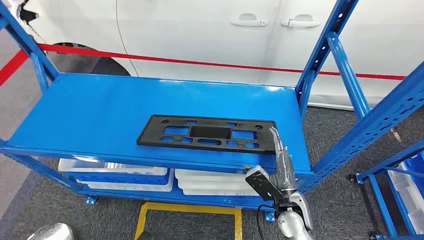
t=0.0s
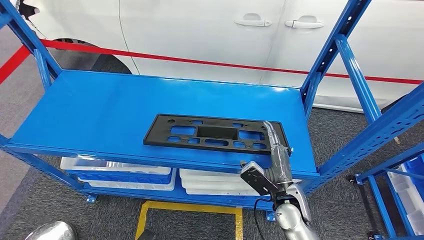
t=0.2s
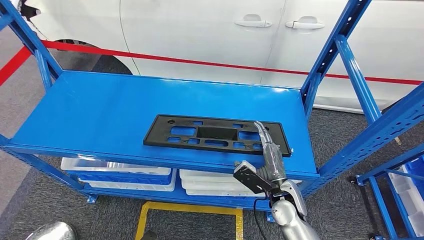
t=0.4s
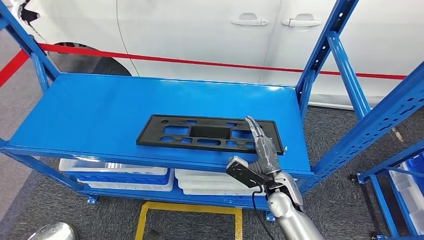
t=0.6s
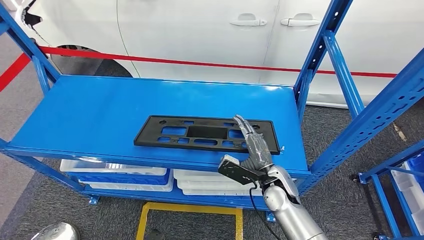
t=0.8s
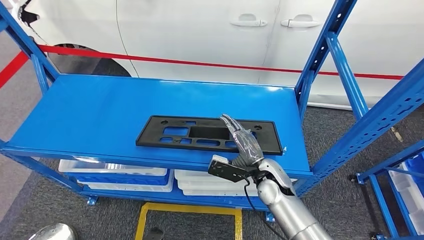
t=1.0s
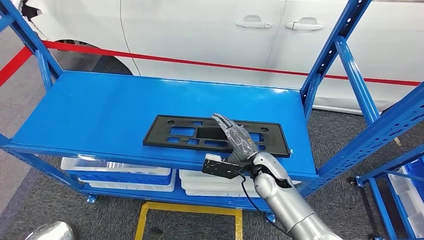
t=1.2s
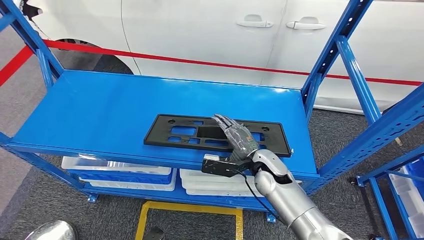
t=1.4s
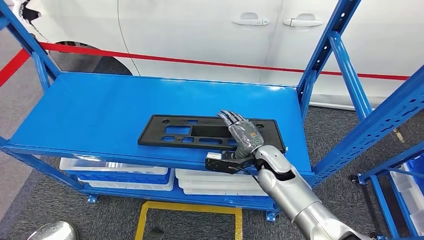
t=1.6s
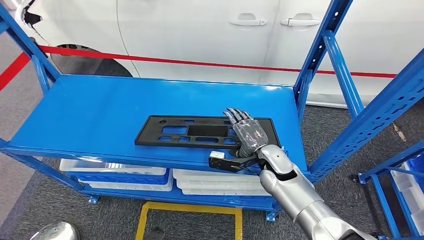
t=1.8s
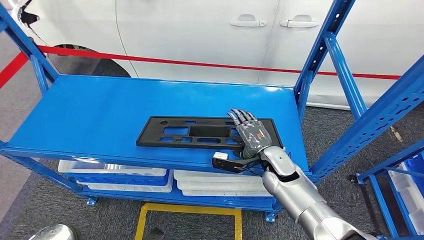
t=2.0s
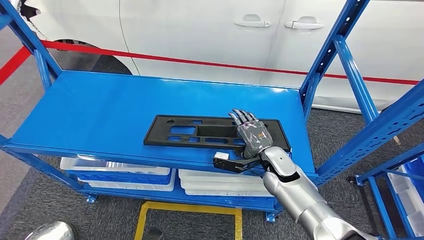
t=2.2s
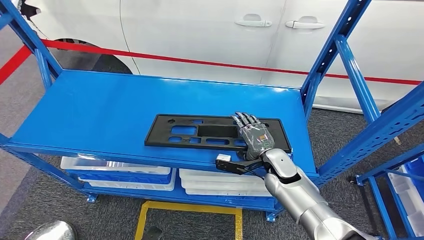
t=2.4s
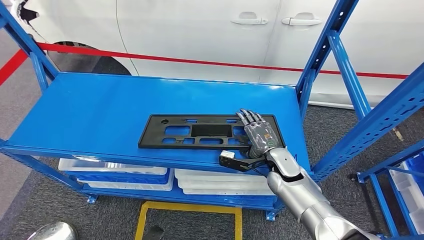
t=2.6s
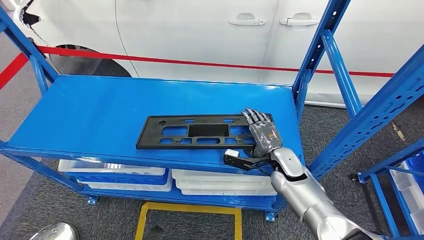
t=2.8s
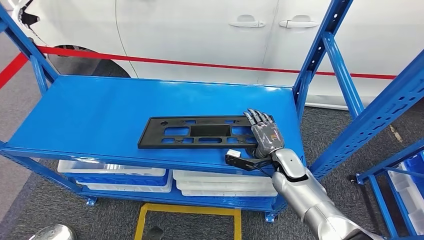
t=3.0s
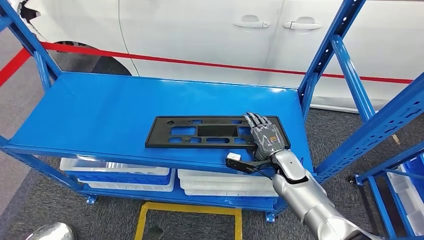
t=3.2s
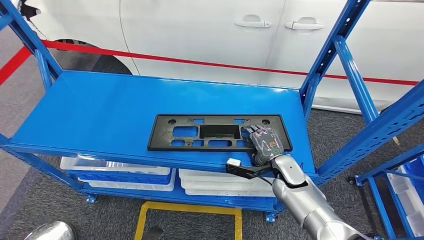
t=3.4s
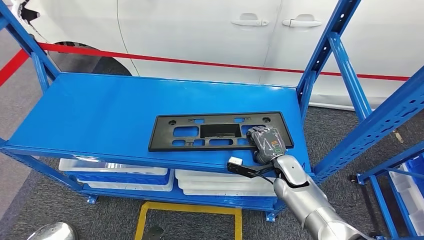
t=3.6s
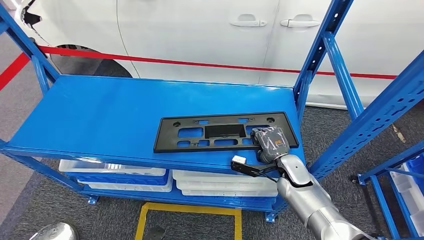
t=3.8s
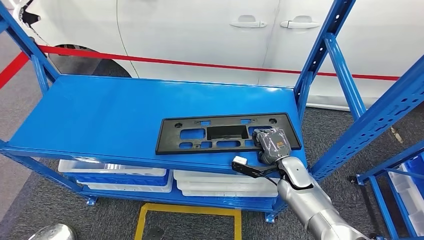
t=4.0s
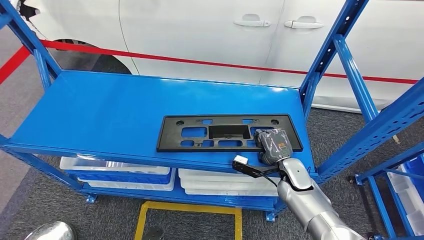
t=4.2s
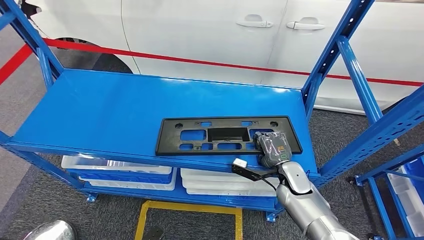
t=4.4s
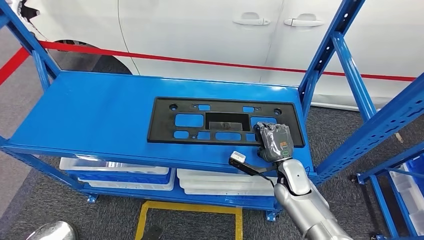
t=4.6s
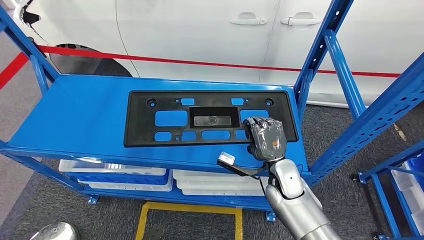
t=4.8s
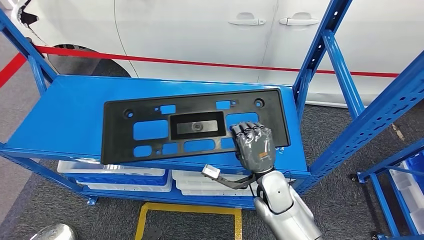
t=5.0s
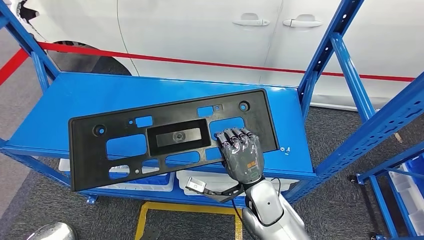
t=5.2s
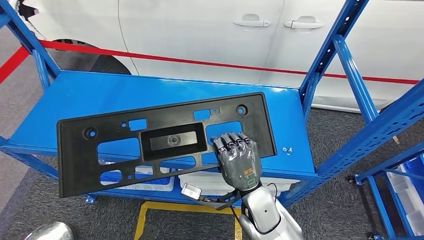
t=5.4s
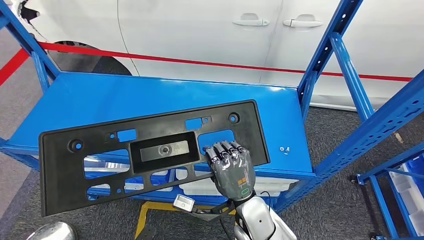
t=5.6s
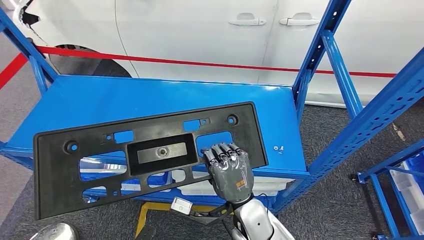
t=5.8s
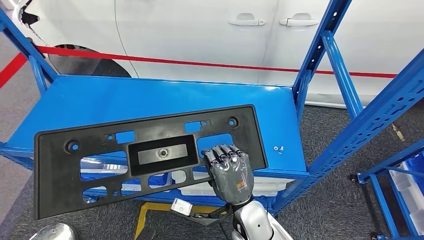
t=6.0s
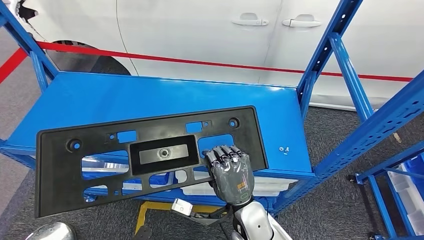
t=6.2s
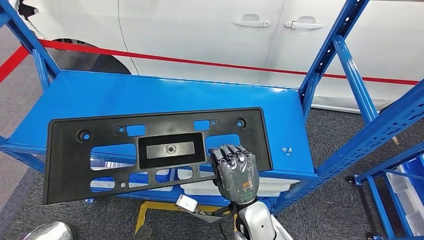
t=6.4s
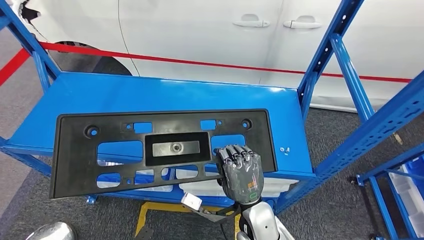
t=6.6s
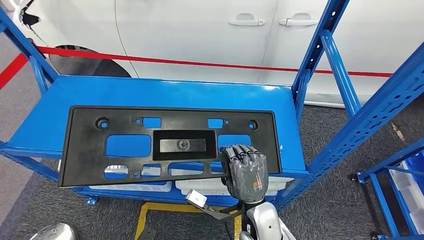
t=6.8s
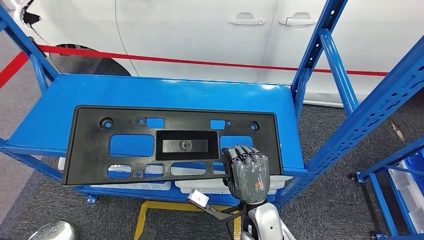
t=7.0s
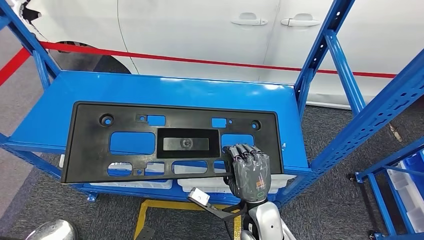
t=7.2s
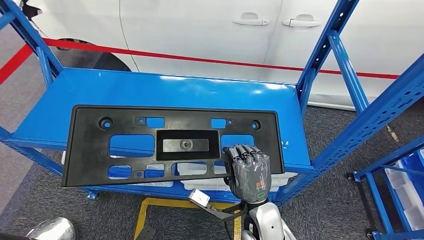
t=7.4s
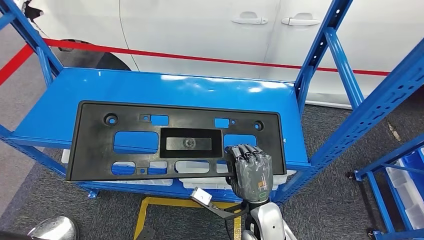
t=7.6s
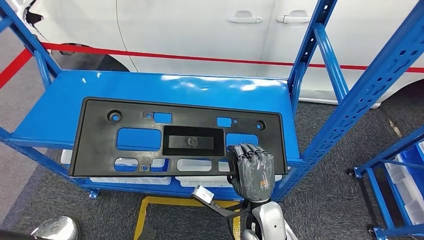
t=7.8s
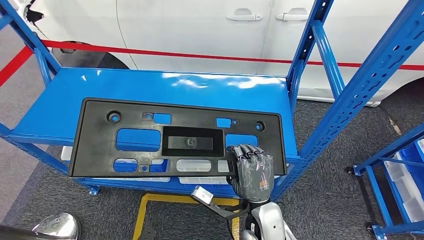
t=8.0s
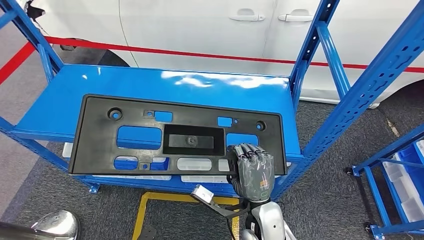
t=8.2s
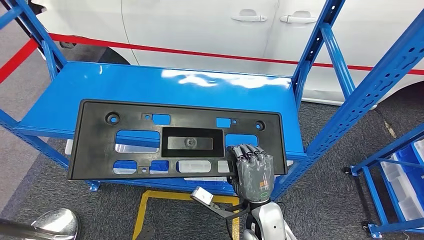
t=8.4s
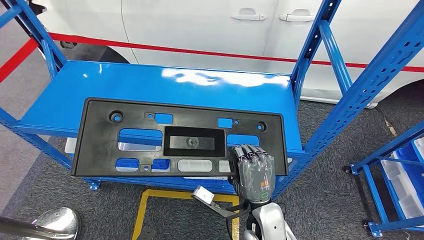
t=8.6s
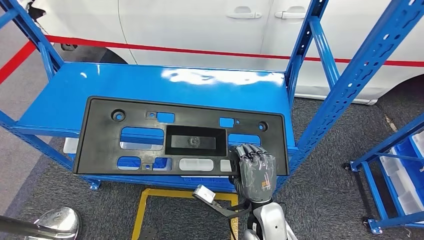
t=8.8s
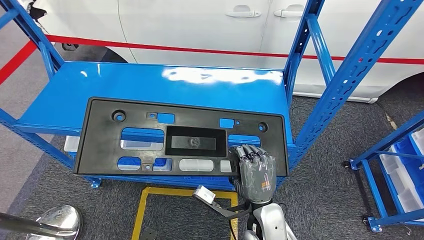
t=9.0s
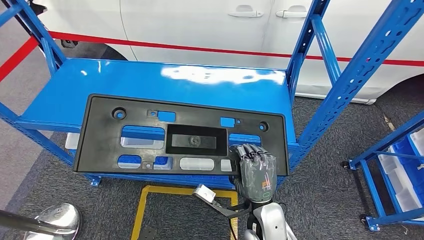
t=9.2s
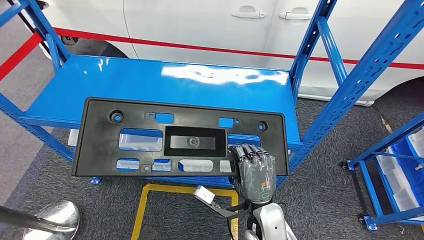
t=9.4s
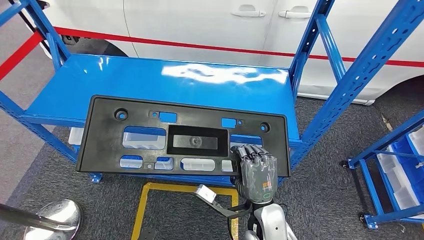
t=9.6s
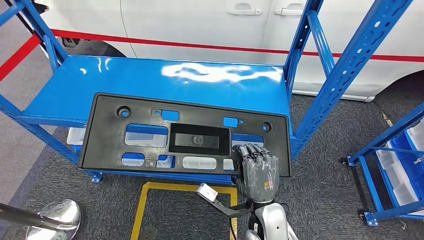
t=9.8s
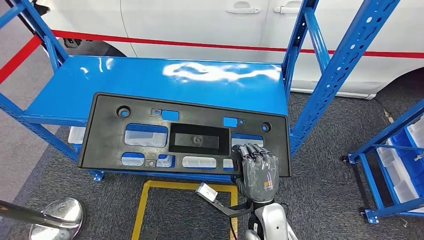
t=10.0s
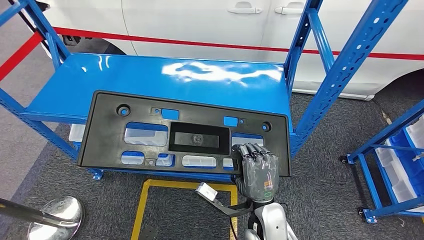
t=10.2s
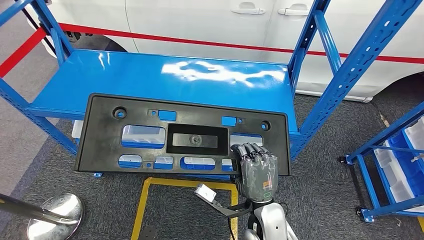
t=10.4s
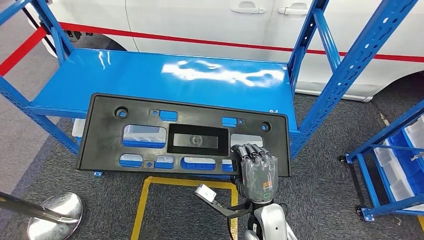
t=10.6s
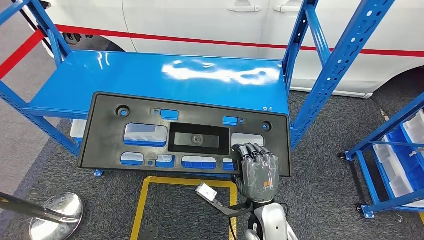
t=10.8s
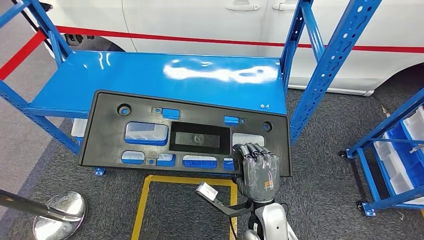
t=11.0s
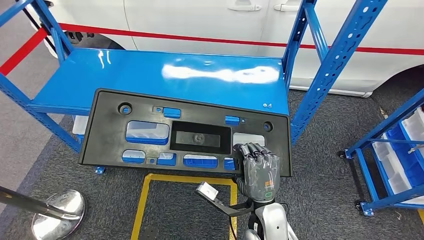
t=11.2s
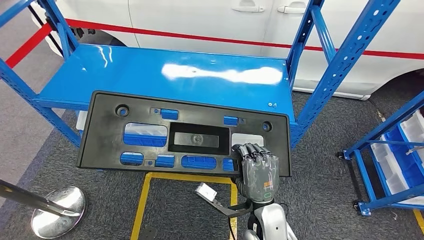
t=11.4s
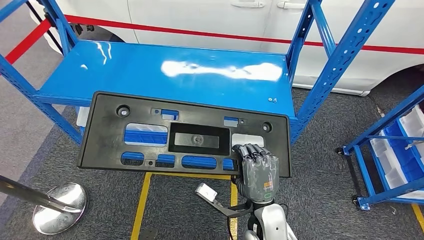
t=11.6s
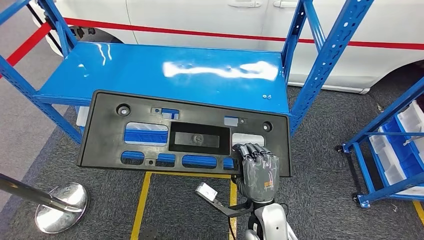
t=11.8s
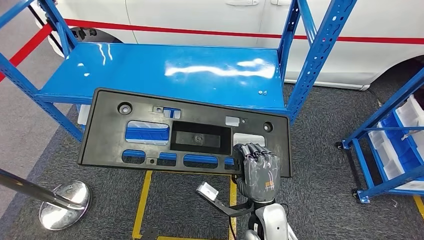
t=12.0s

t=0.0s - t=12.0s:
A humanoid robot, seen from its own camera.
Step, t=0.0s - t=6.4s: Pick up the large material from the shelf.

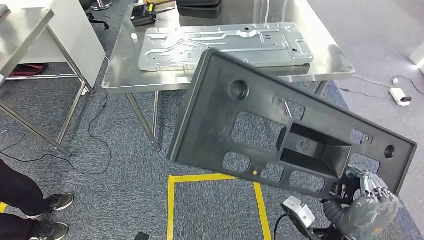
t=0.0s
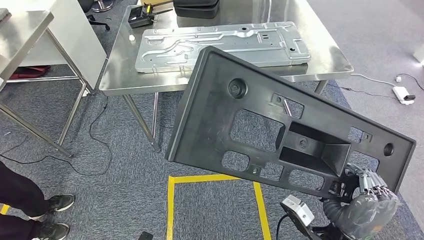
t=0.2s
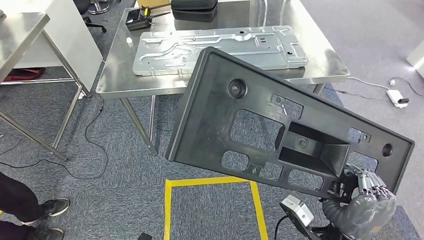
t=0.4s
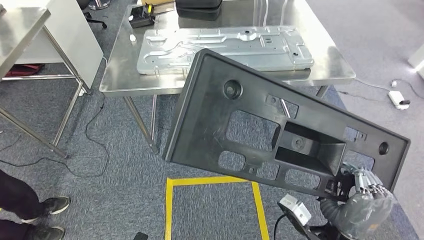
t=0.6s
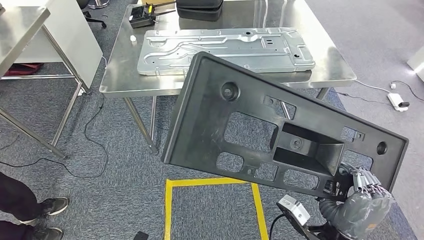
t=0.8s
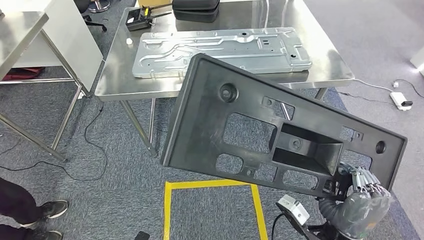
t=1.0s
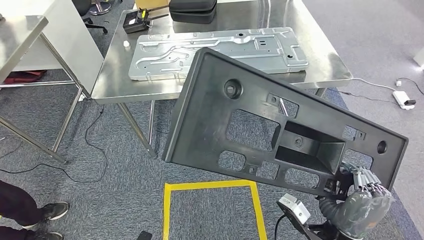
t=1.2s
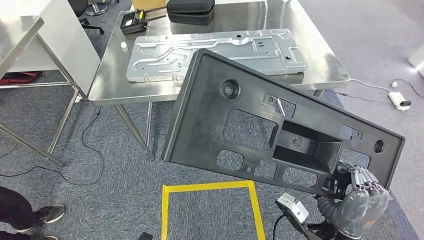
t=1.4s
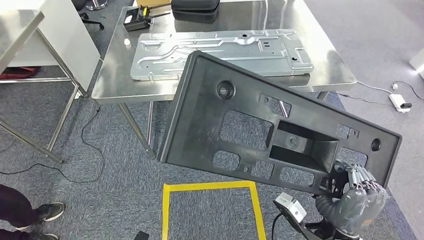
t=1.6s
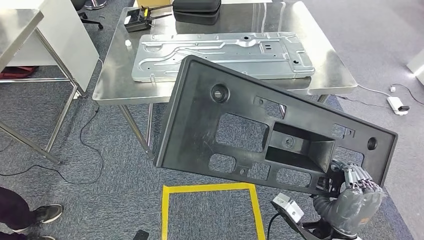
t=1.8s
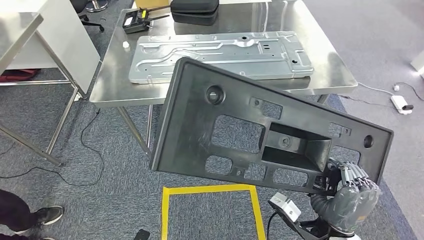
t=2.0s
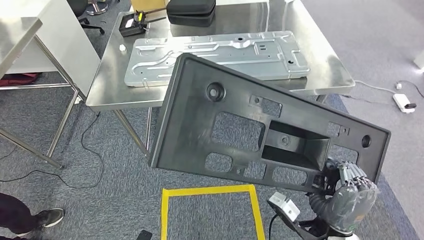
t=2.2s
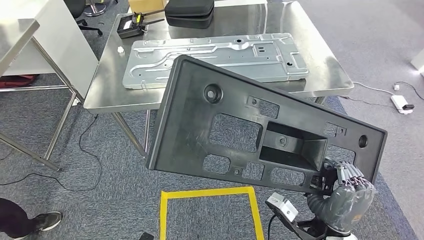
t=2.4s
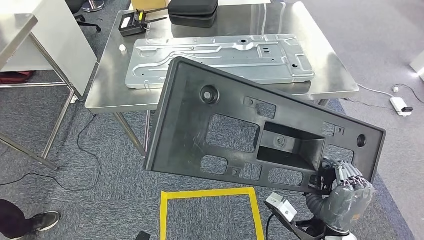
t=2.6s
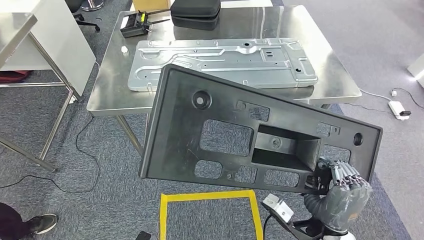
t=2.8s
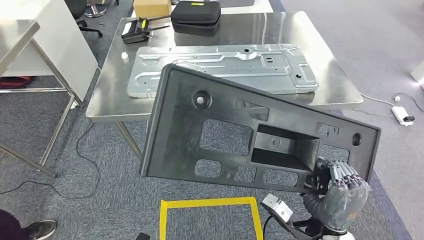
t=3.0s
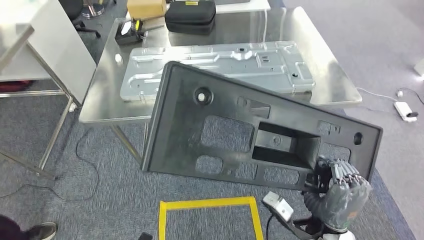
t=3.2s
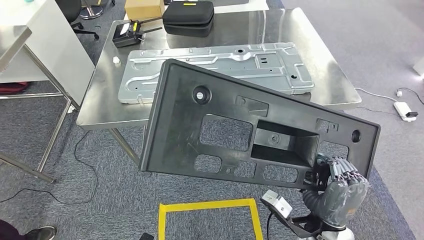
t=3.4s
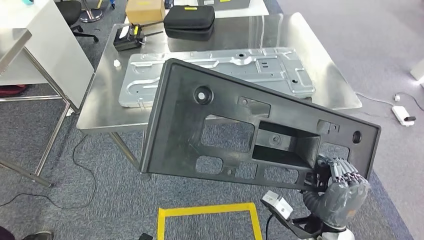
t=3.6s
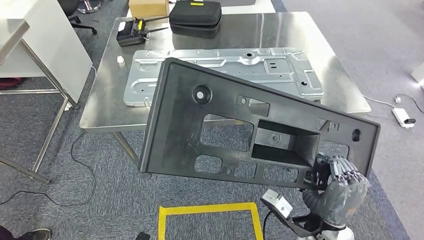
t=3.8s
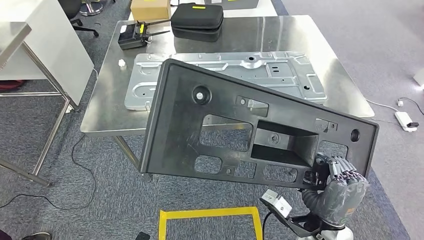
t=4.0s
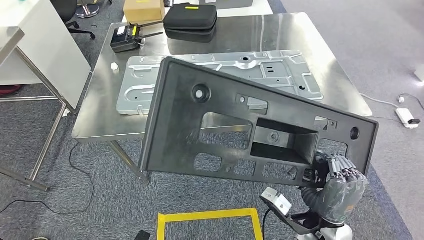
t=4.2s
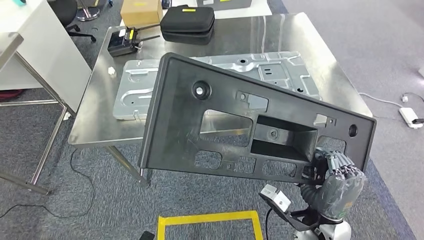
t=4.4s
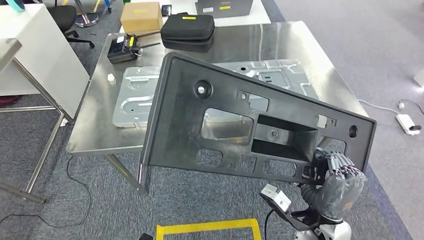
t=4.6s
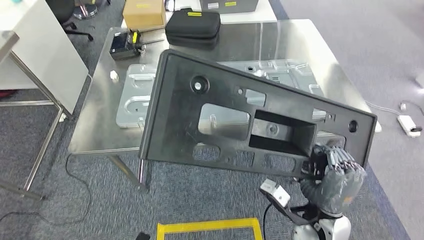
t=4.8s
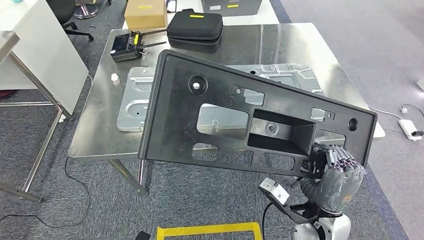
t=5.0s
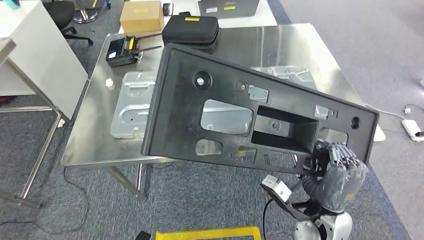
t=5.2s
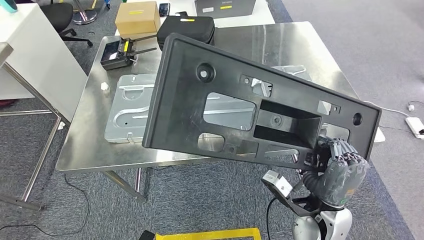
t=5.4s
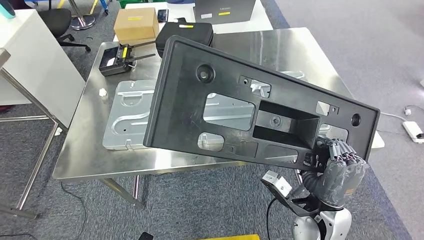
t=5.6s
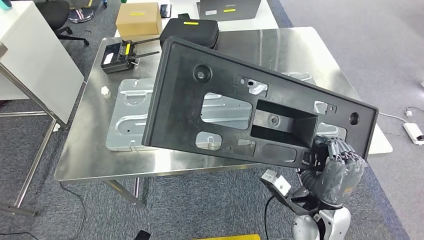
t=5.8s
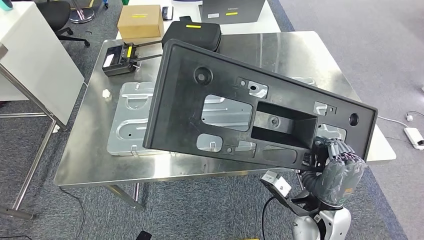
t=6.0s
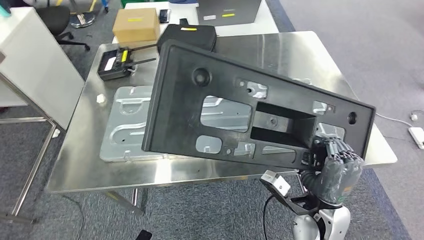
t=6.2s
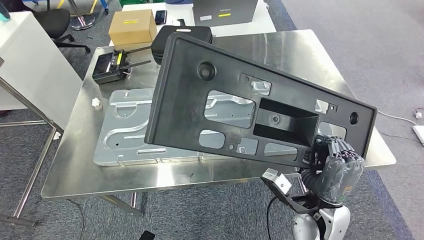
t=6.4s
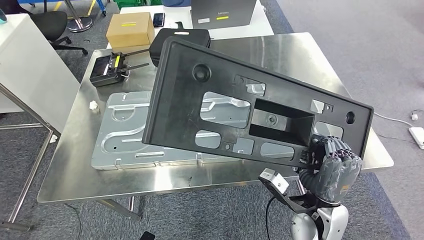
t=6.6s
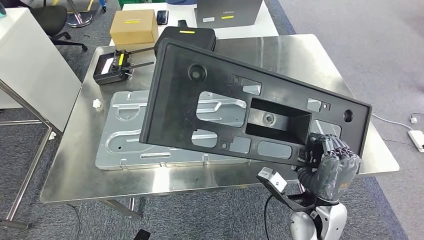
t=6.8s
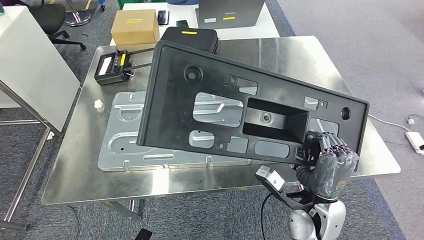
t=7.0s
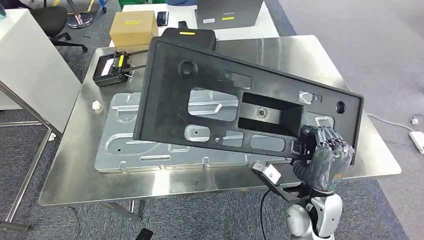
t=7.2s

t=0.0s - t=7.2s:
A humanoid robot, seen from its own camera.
Step, t=0.0s - t=2.6s: Move the large material to the front of the workbench.
